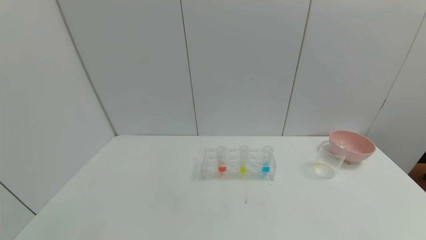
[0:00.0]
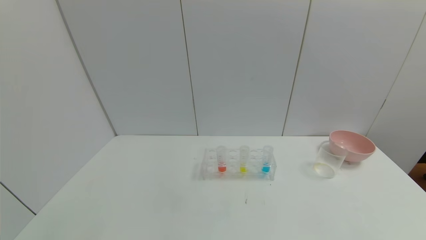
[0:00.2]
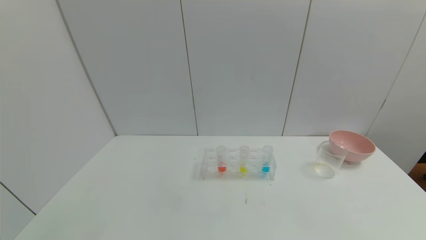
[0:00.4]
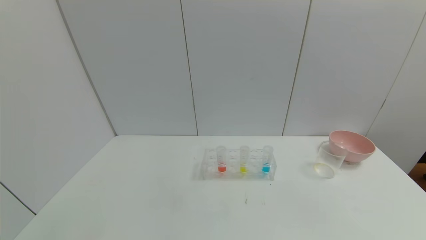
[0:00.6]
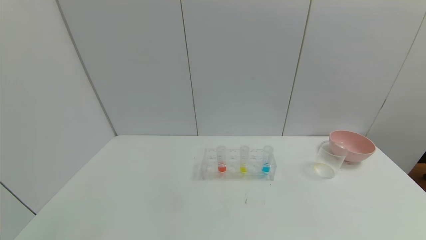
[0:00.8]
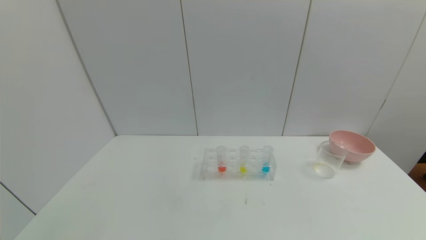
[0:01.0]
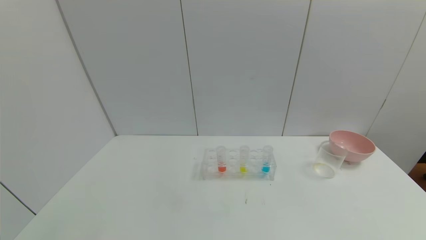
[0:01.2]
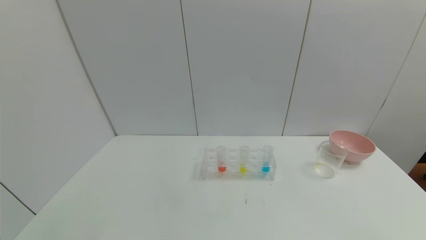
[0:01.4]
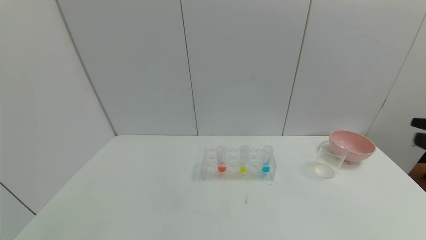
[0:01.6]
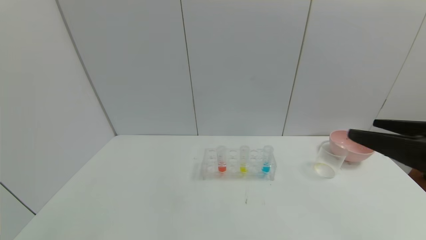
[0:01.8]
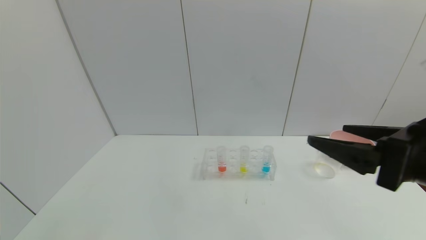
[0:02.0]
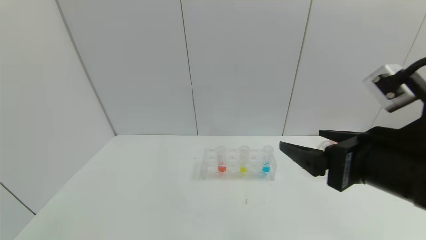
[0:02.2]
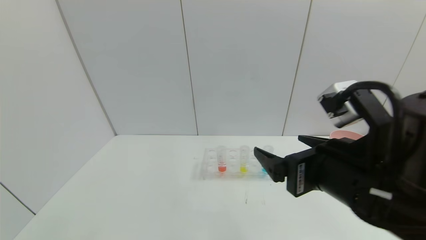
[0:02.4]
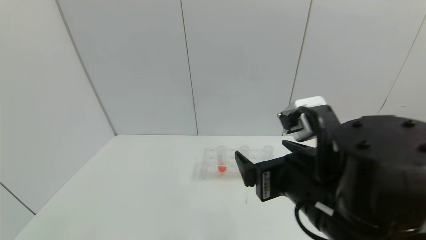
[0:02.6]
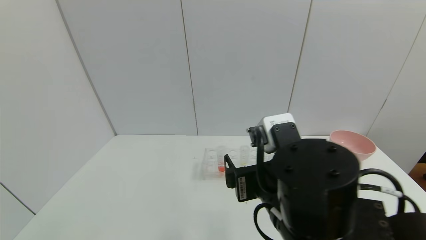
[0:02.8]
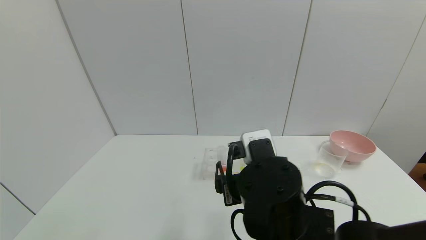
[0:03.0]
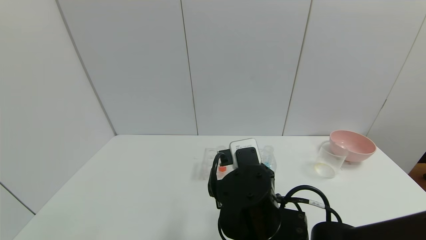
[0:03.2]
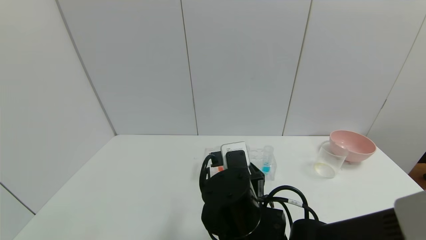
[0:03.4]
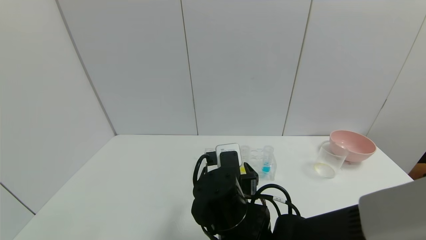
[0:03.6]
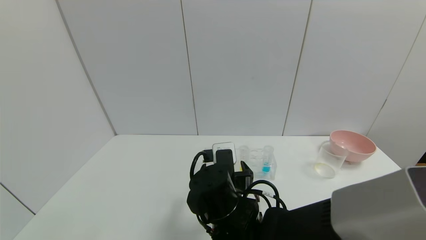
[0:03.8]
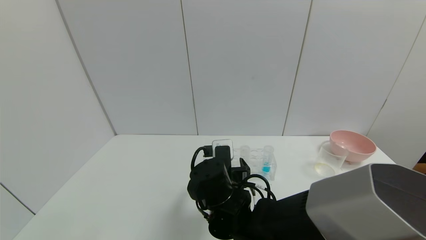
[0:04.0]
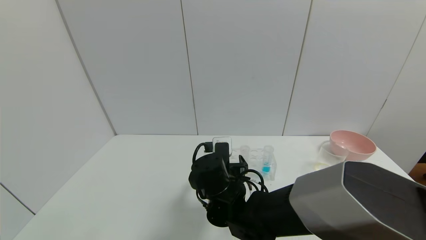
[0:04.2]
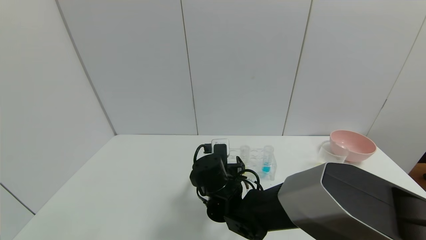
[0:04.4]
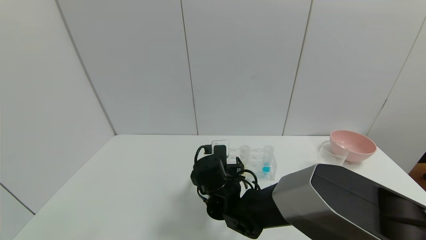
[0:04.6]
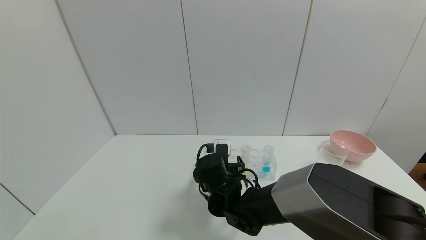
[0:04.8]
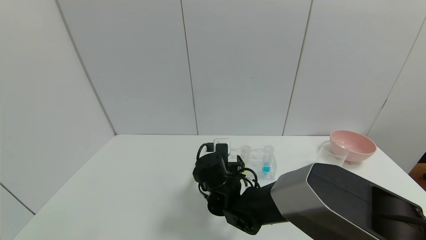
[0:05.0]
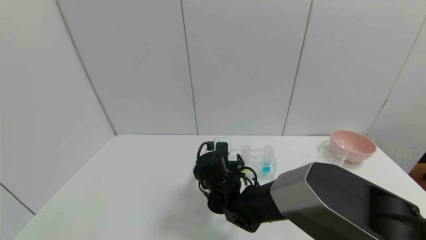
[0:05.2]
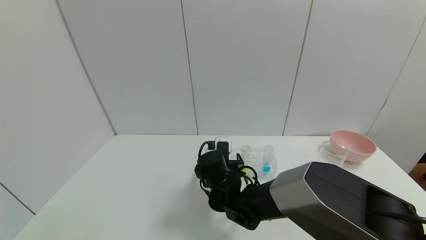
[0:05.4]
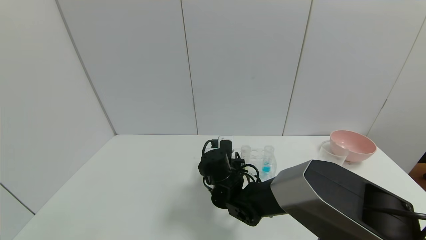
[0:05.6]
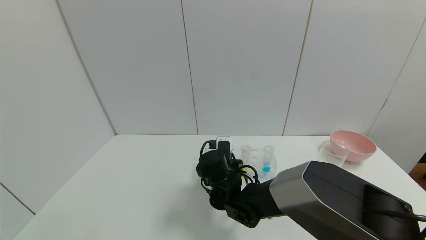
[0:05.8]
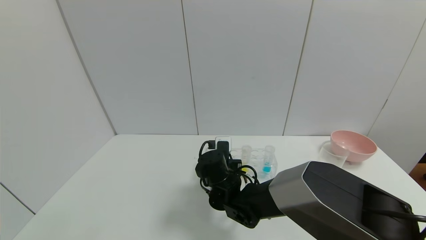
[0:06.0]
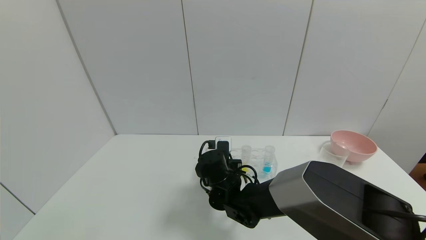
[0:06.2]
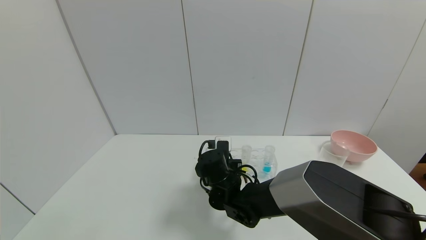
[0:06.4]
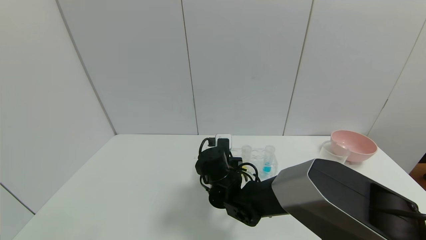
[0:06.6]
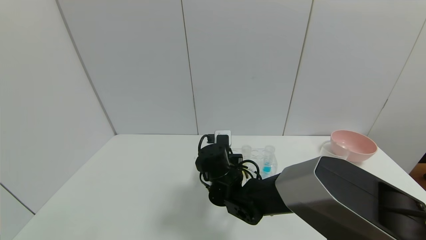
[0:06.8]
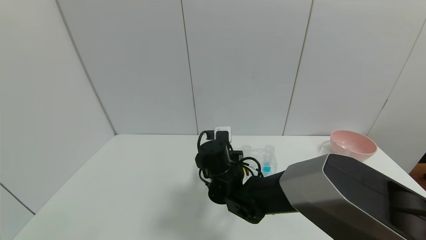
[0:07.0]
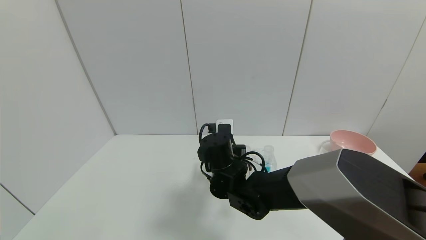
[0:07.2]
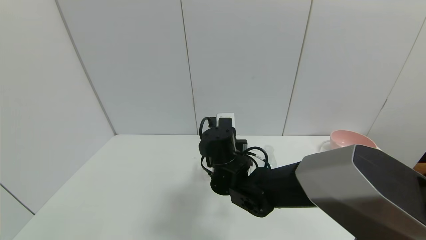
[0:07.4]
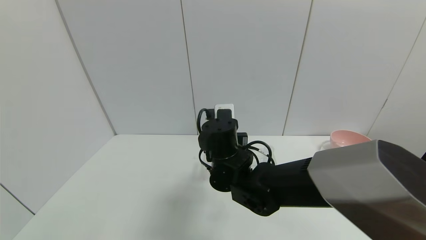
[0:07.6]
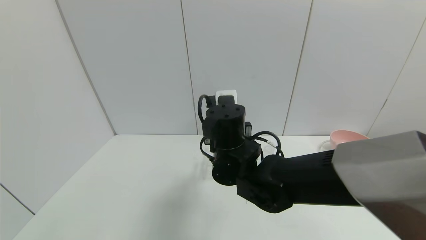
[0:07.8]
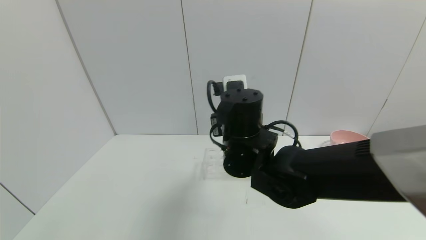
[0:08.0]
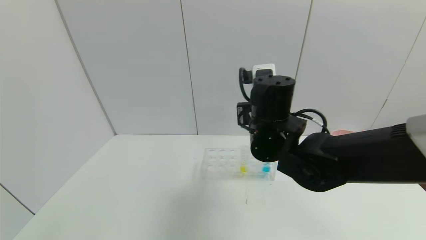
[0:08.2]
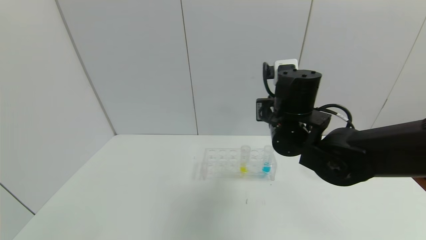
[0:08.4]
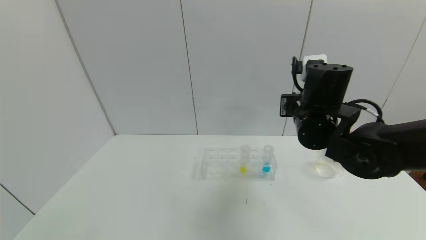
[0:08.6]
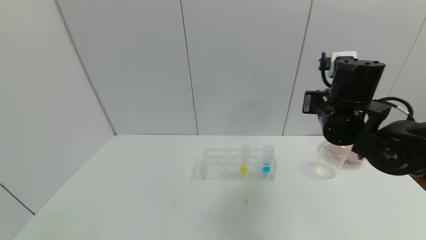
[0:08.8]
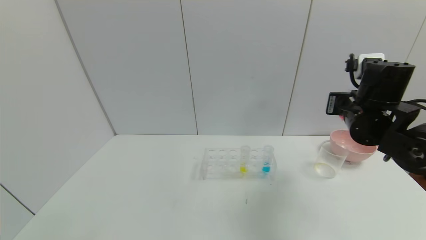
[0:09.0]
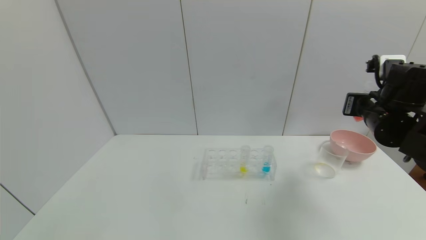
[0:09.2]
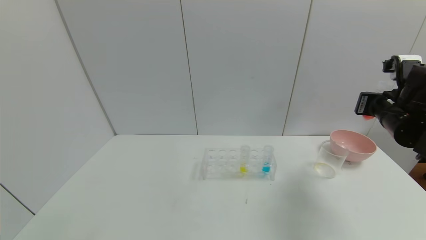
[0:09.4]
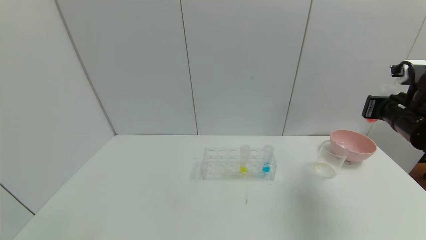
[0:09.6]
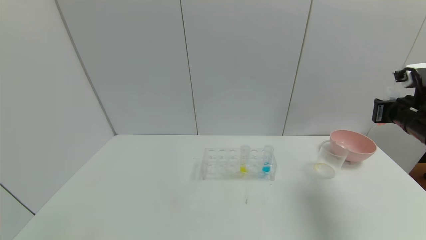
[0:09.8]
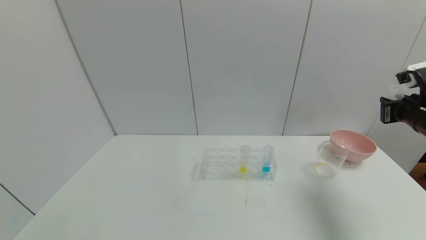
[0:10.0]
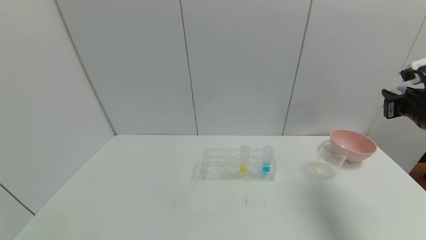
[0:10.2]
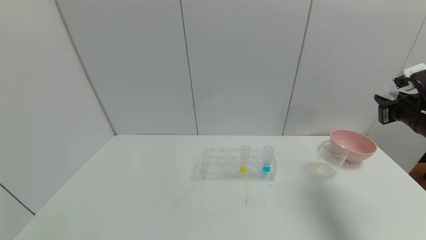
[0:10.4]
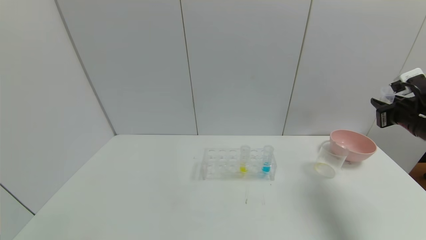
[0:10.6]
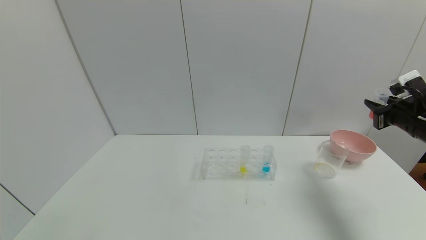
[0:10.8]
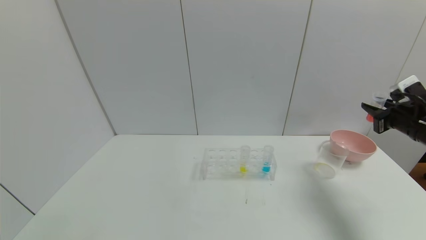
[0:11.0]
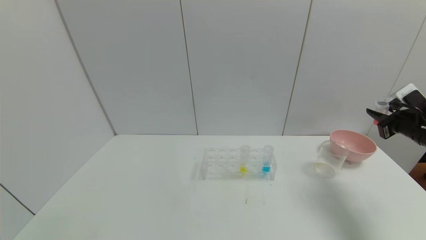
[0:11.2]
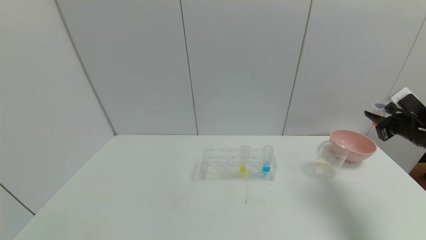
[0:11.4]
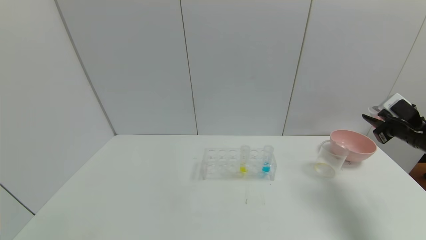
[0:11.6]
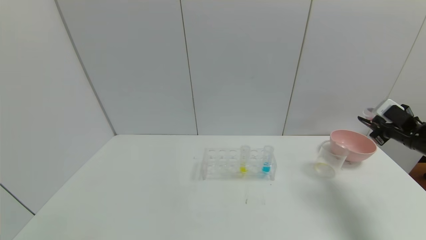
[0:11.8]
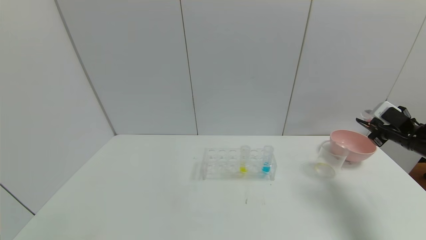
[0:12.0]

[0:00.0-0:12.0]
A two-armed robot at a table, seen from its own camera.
Task of the whole recording: pick up the test tube with yellow pigment and the test tube with red pigment by grippers and pour them into the beaker.
Step, 0:00.0 to 0:05.8: Grasp the red reagent with the right gripper.
0:01.6 to 0:03.0: The right gripper is displaced to the left and downward by some 30 cm.
0:03.0 to 0:04.4: The right gripper travels forward, downward and to the left by some 15 cm.
0:04.4 to 0:06.0: The right gripper closes its fingers.
0:06.0 to 0:07.6: The right gripper travels upward by roughly 10 cm.
0:07.6 to 0:09.0: The right gripper heads to the right, covering about 25 cm.
0:09.0 to 0:10.4: The right gripper heads to the right, covering some 15 cm.
0:10.4 to 0:12.0: The right gripper is displaced downward by roughly 5 cm.

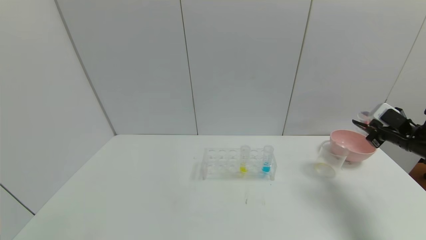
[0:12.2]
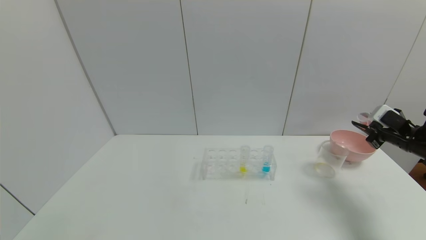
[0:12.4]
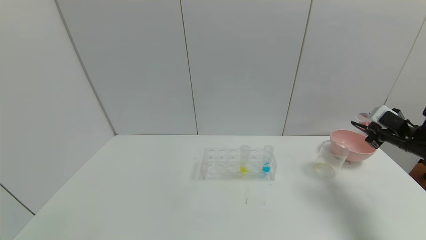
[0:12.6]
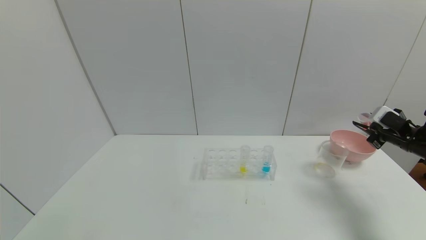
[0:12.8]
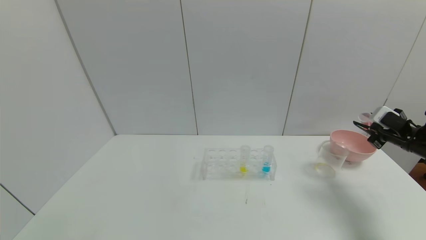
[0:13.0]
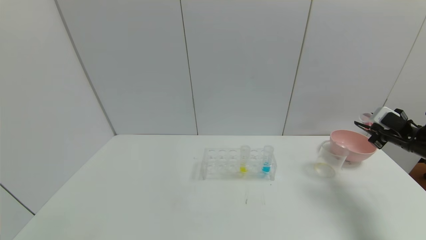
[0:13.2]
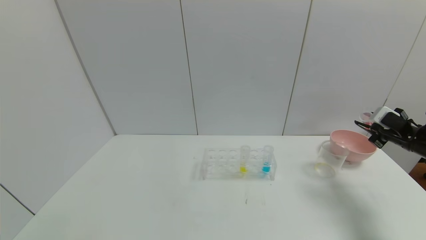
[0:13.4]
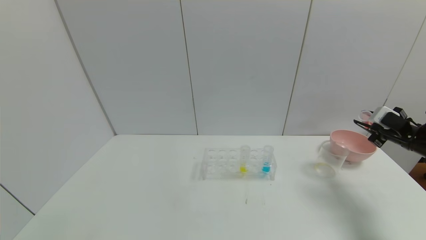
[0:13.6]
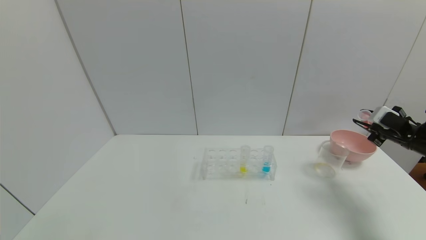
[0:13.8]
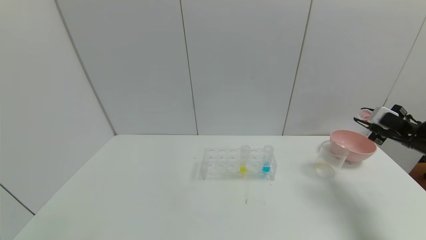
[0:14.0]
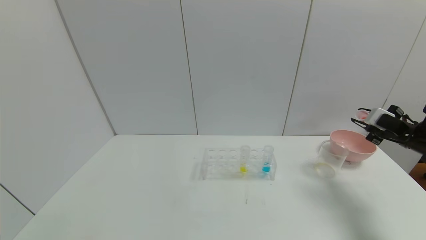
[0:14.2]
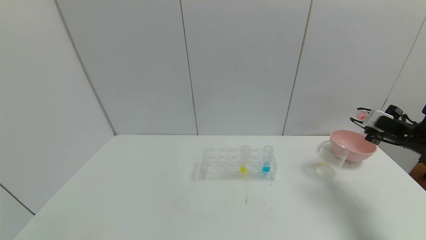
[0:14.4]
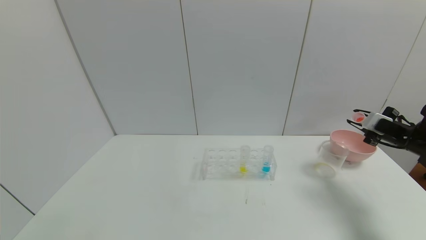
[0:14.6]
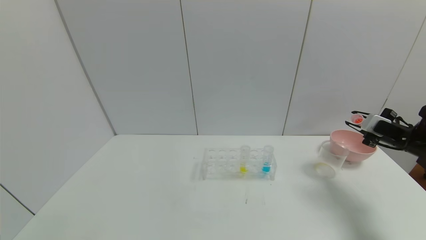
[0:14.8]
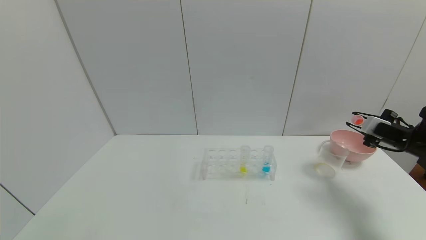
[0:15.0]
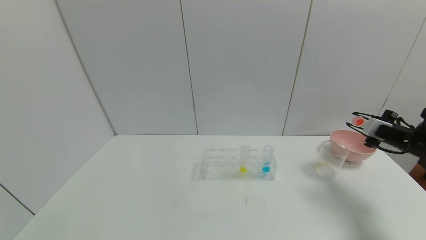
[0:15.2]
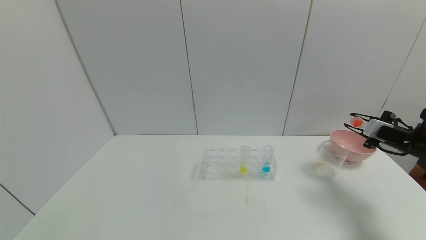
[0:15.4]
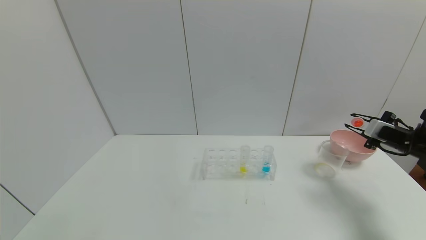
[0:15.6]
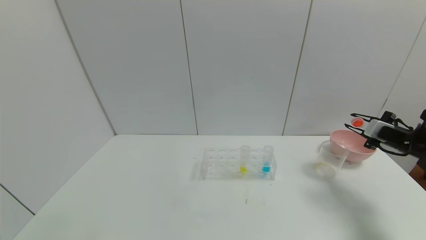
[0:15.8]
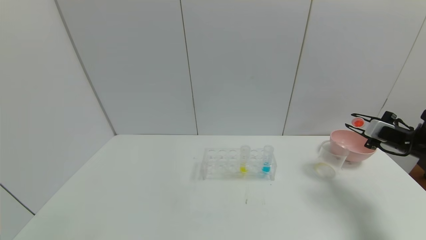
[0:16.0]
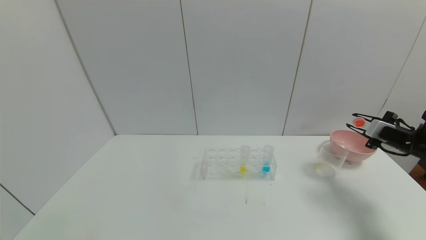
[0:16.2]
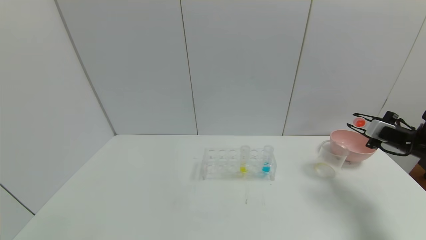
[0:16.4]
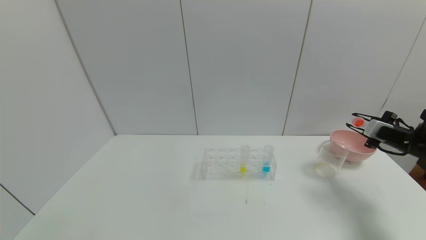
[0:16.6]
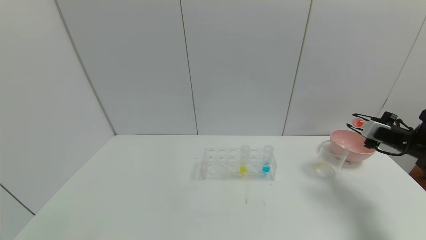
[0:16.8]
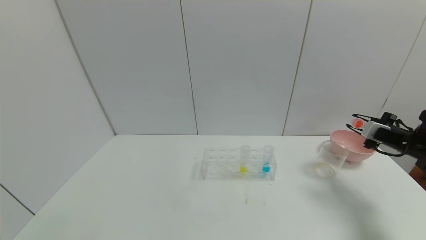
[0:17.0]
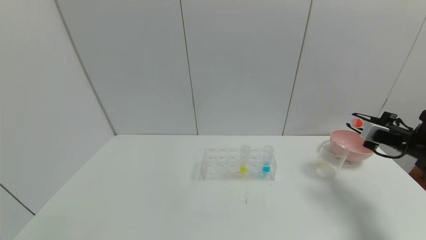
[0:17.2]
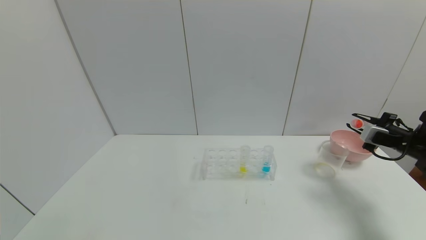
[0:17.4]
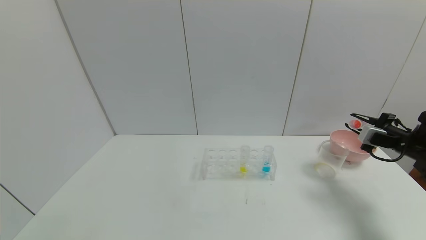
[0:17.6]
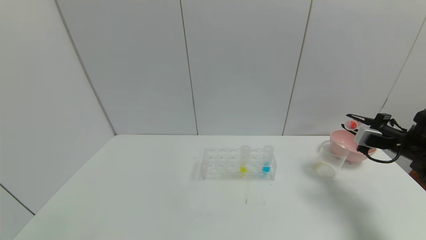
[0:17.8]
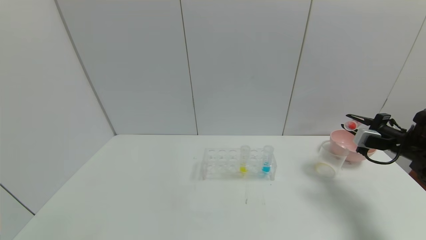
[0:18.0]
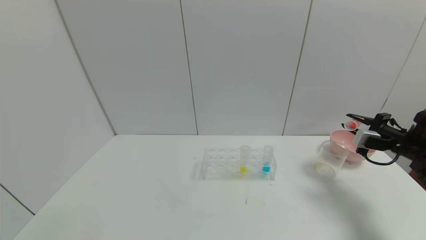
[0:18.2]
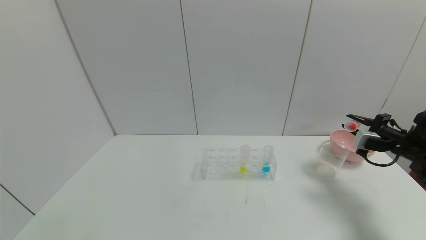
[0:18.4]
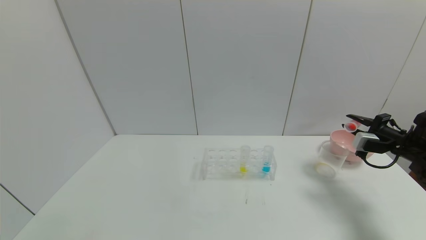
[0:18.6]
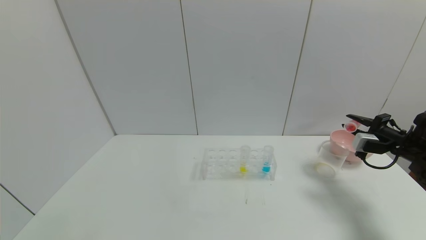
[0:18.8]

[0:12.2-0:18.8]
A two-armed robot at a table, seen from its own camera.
Task of the whole recording: pick up the test tube with yellow pigment and the test tube with red pigment by grippers and pour them into the beaker.
0:13.8 to 0:15.4: There are only small adjustments of the grippers.
0:17.2 to 0:18.8: There are only small adjustments of the grippers.
